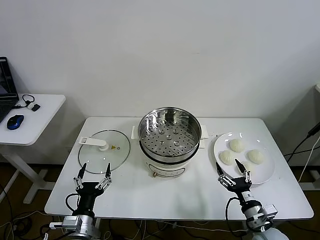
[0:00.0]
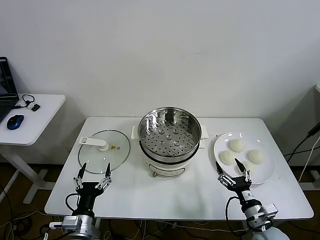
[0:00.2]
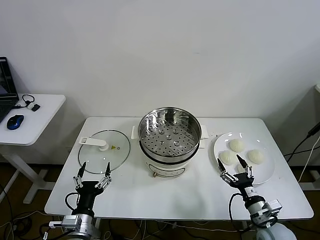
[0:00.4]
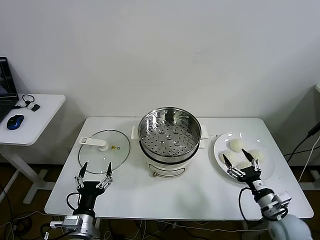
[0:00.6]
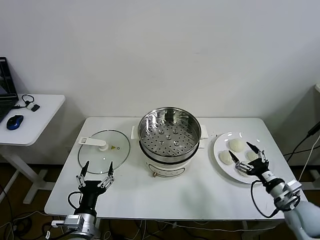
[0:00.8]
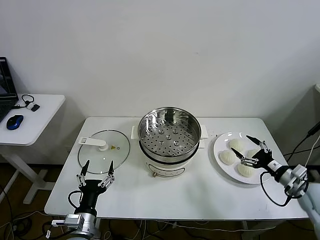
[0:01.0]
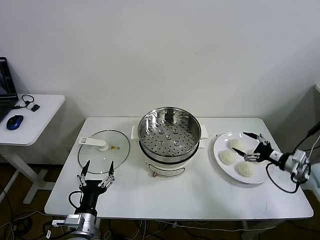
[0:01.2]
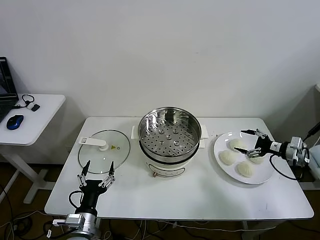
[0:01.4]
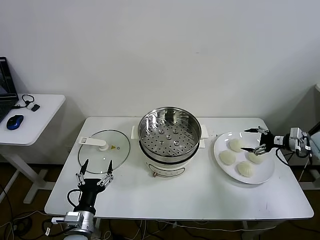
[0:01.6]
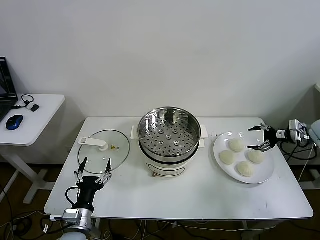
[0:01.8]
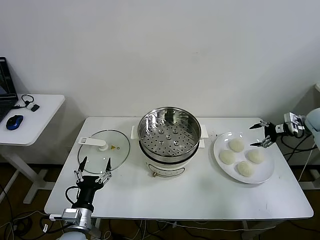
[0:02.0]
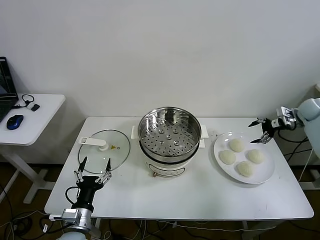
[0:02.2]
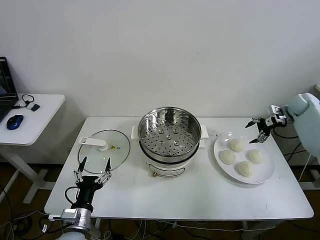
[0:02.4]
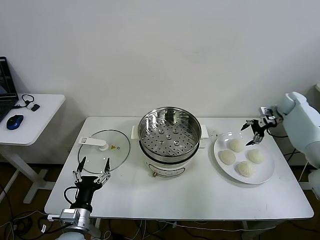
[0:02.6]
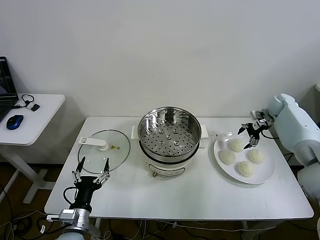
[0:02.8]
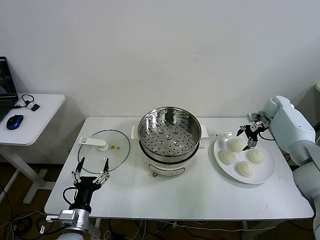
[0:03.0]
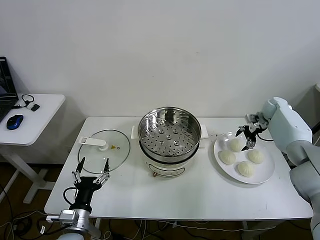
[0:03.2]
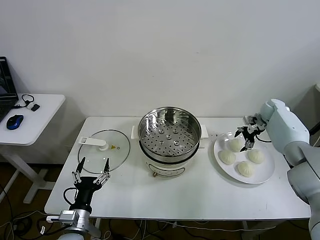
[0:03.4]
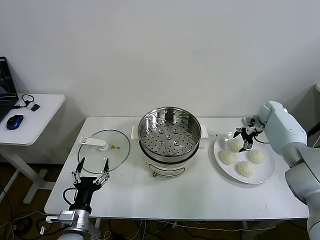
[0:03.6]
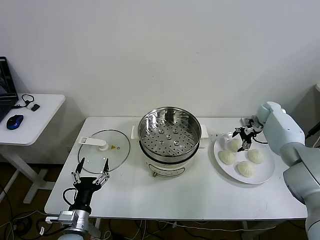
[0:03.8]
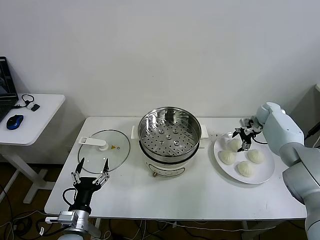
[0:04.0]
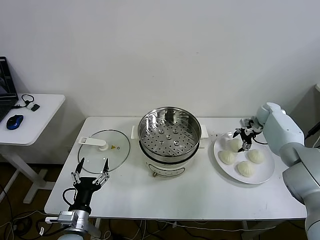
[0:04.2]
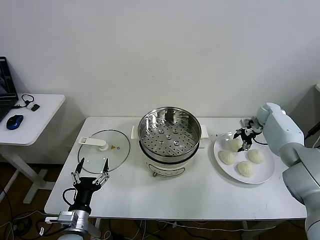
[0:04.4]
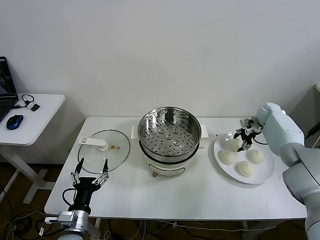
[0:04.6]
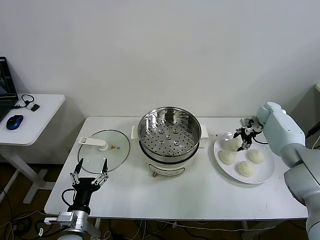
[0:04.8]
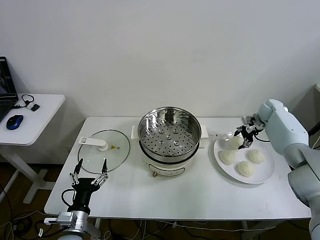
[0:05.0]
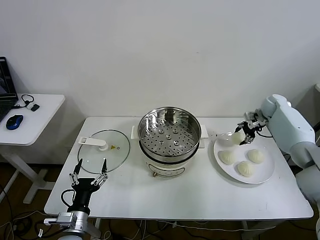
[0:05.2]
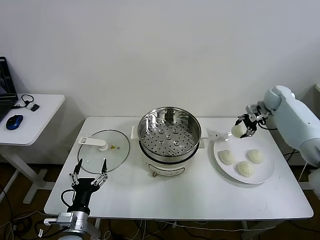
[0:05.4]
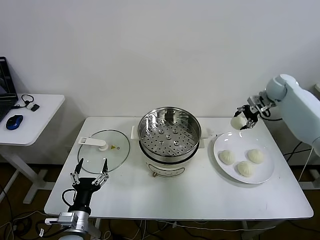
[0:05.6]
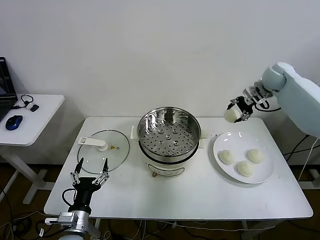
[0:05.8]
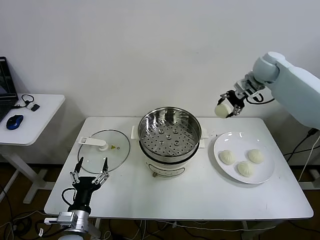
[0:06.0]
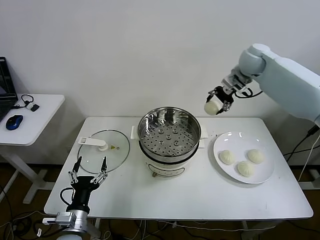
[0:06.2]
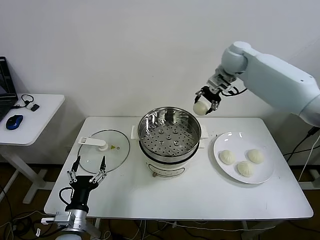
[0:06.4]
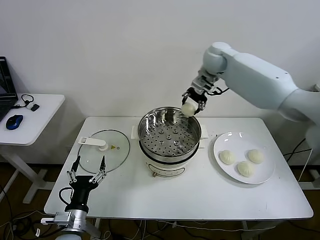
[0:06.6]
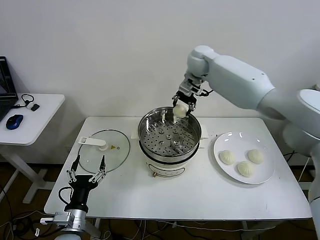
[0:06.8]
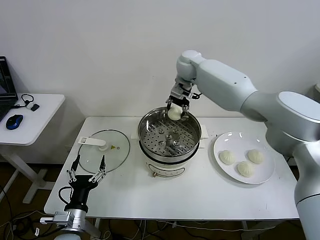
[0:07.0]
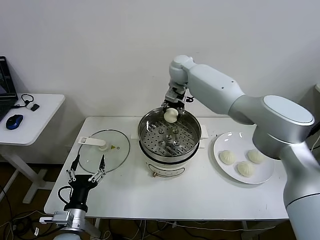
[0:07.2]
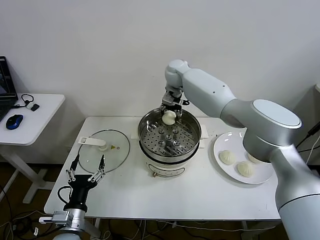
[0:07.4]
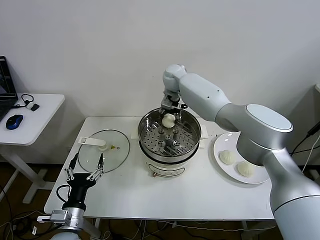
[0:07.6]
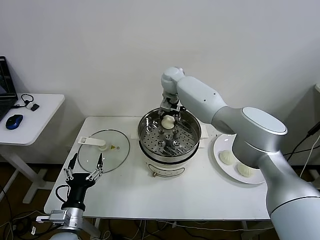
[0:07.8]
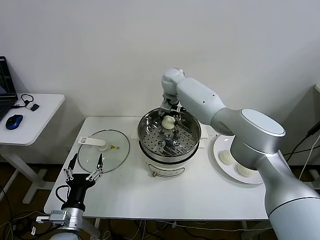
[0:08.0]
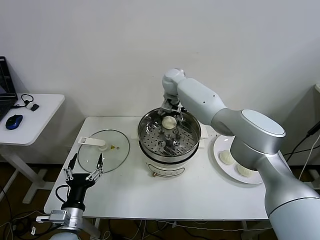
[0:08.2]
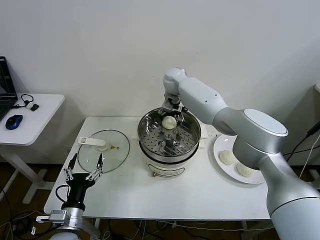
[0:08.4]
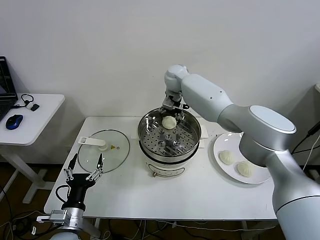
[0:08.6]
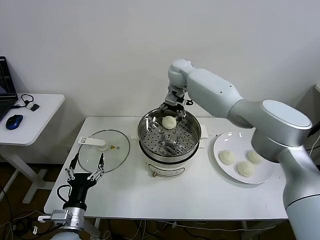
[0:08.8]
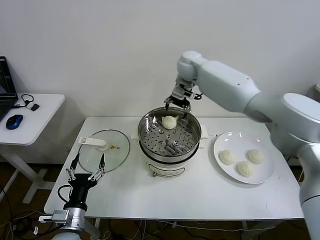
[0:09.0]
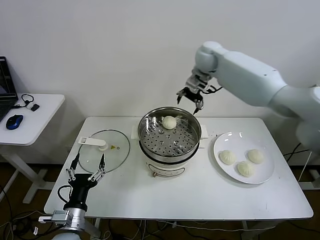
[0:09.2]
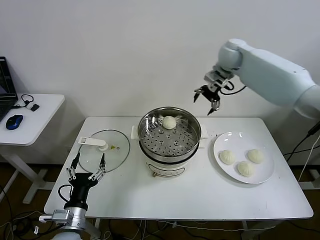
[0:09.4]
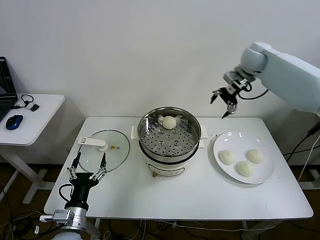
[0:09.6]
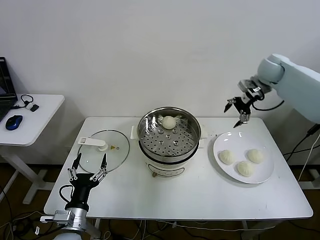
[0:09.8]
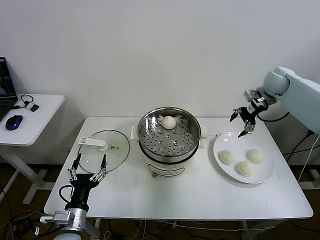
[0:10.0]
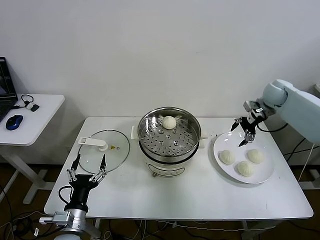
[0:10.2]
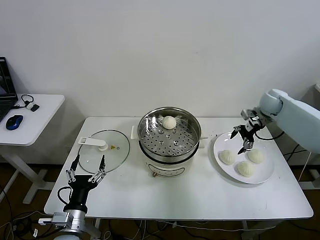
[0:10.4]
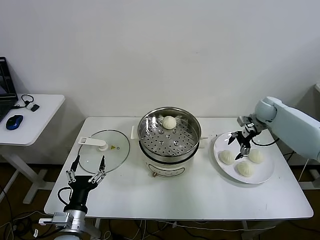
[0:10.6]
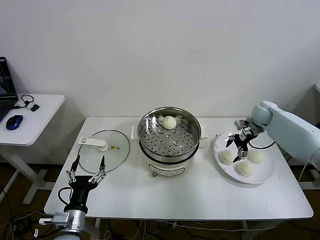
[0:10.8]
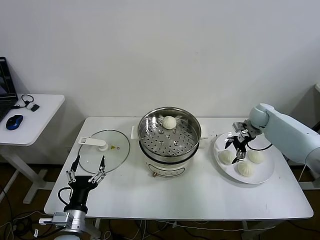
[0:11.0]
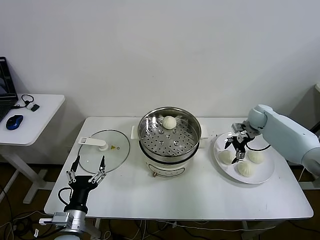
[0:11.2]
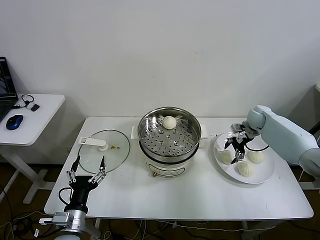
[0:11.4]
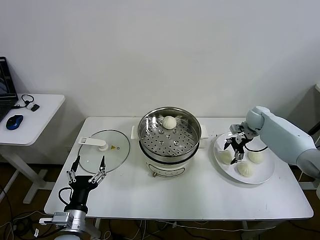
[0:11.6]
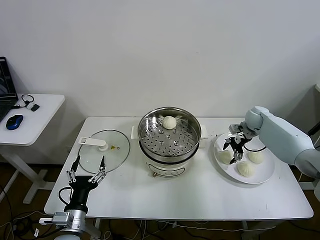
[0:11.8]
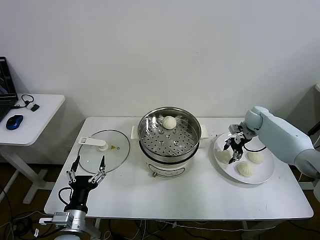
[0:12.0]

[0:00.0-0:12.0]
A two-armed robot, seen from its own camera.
Task of the whole recording: take steamed baozi put them in steamer.
Step, 0:00.0 to 0:04.6: Grasp the baozi in the plate with right gripper.
Step, 0:04.8 to 0:08.6: Place the baozi on the steamer with right gripper.
0:01.6 to 0:03.0: The right gripper is displaced forward and to the left by roughly 20 cm.
0:03.0 to 0:04.4: The right gripper closes.
0:04.4 to 0:06.0: The right gripper heads upward and to the left, covering about 25 cm.
0:06.0 to 0:07.6: The right gripper is displaced to the left by some 30 cm.
0:07.6 to 0:09.0: The right gripper shifts about 10 cm upward and to the right, and opens its fingers.
0:09.0 to 0:10.4: The right gripper moves to the right and downward, about 35 cm.
0:10.4 to 0:12.0: The right gripper goes roughly 10 cm downward, and closes.

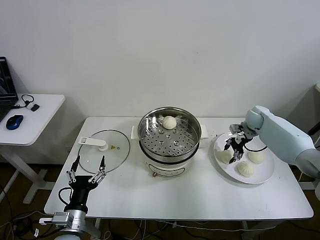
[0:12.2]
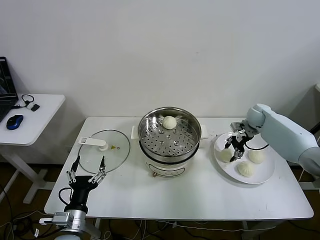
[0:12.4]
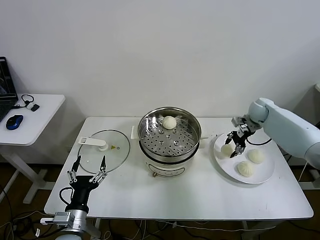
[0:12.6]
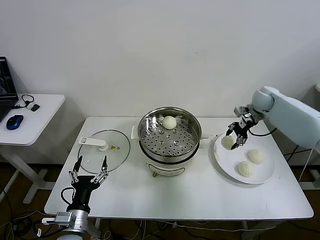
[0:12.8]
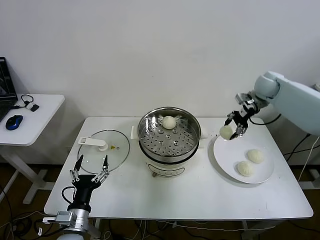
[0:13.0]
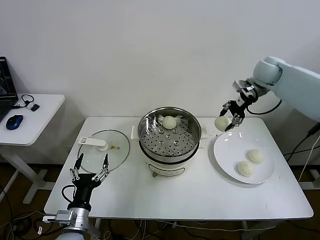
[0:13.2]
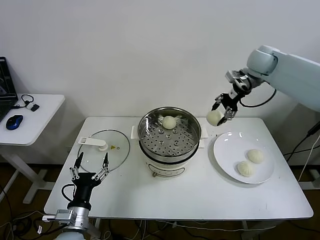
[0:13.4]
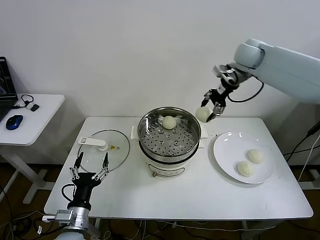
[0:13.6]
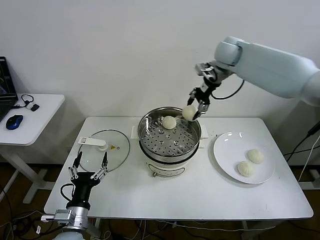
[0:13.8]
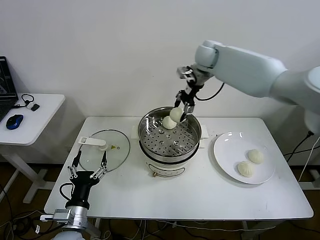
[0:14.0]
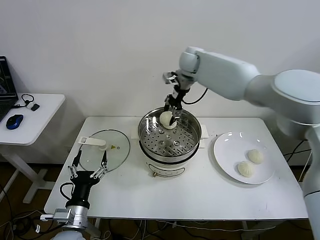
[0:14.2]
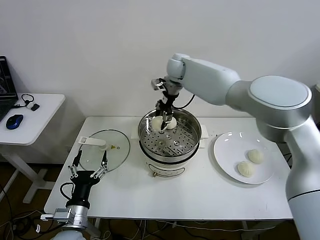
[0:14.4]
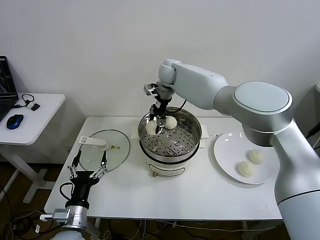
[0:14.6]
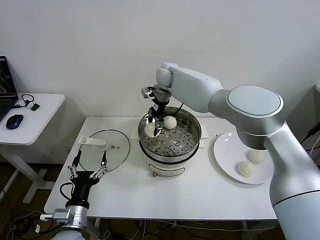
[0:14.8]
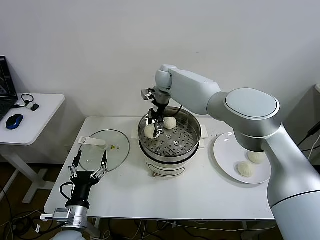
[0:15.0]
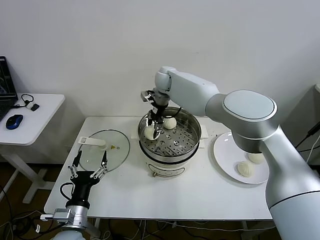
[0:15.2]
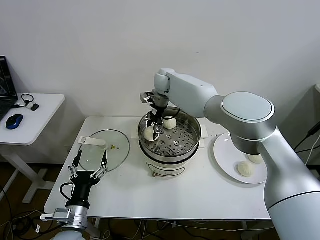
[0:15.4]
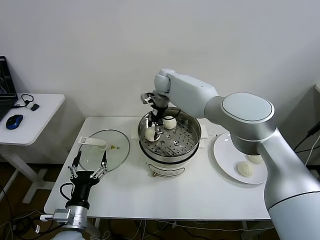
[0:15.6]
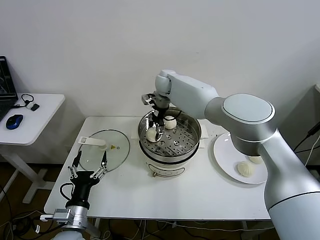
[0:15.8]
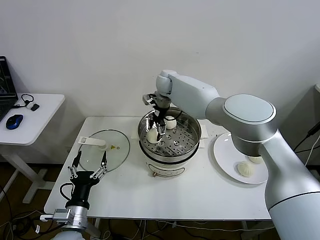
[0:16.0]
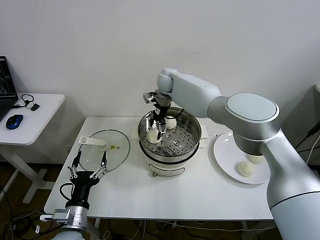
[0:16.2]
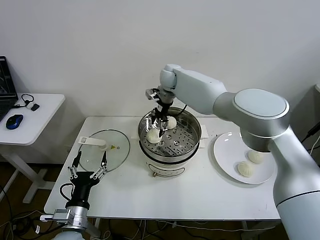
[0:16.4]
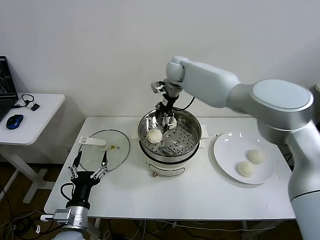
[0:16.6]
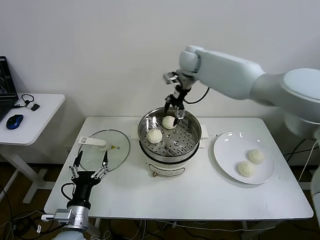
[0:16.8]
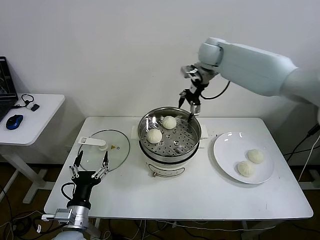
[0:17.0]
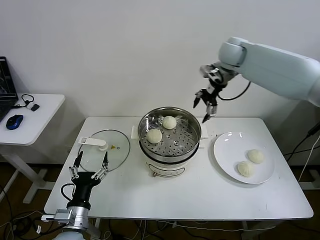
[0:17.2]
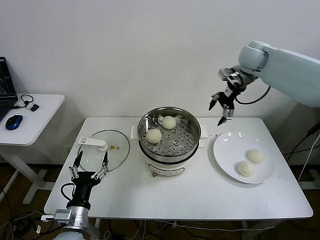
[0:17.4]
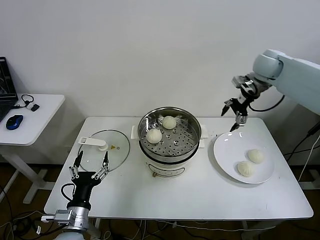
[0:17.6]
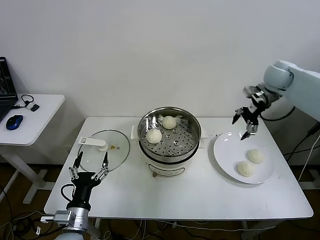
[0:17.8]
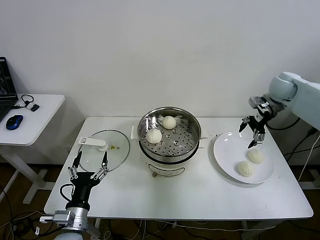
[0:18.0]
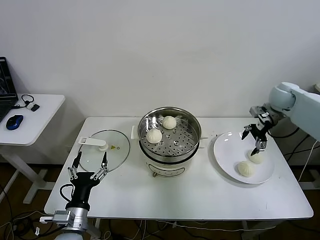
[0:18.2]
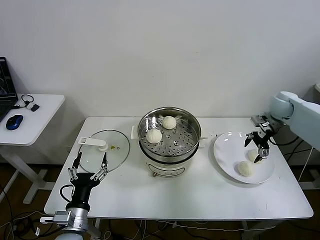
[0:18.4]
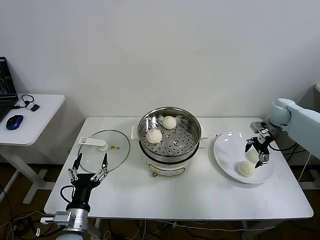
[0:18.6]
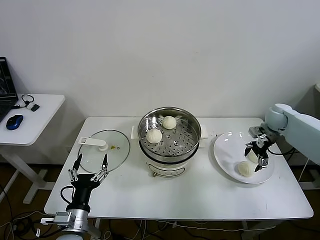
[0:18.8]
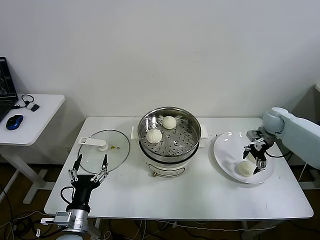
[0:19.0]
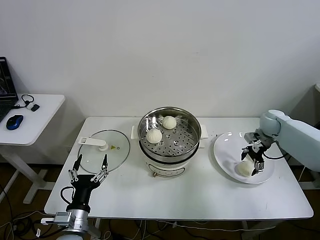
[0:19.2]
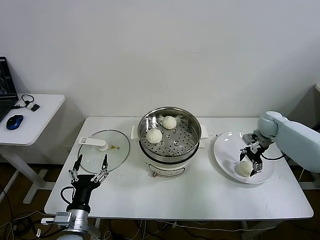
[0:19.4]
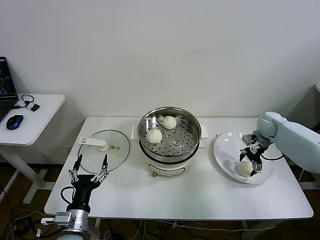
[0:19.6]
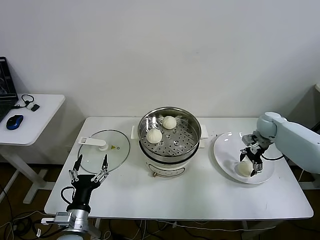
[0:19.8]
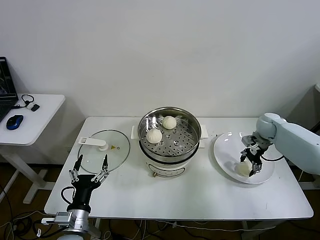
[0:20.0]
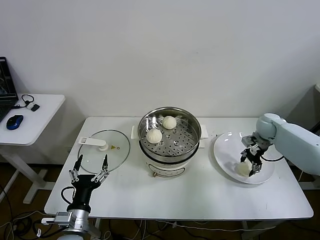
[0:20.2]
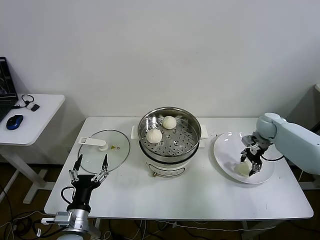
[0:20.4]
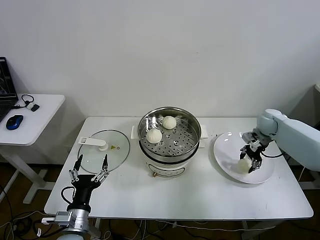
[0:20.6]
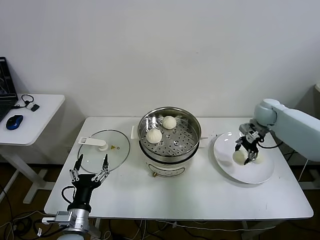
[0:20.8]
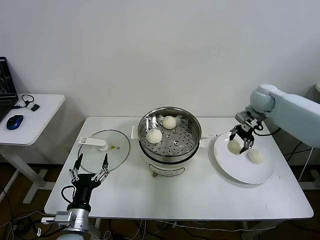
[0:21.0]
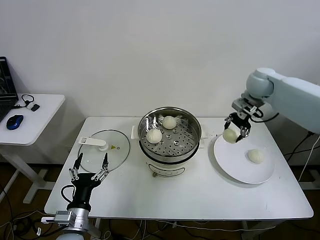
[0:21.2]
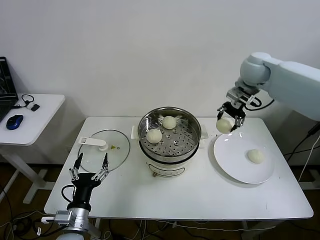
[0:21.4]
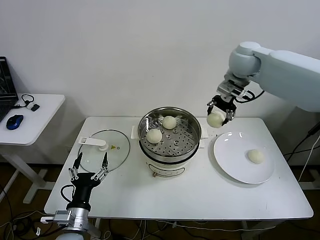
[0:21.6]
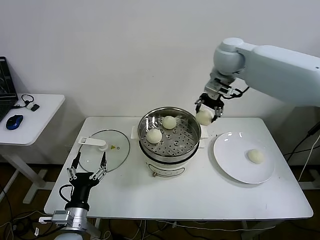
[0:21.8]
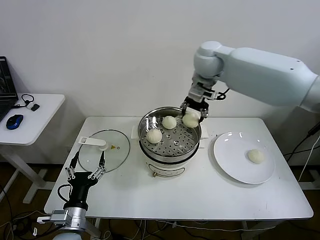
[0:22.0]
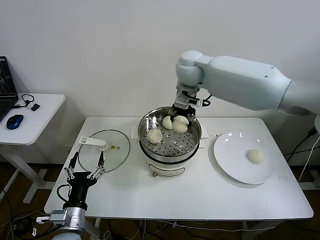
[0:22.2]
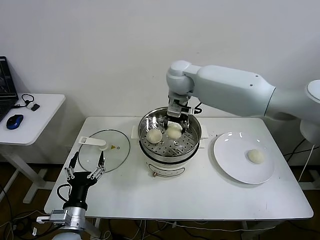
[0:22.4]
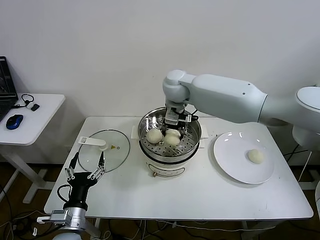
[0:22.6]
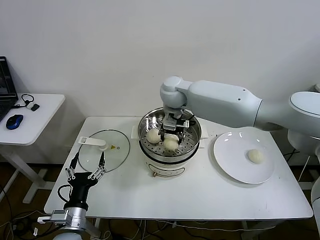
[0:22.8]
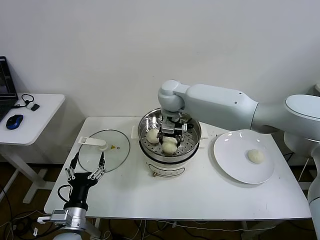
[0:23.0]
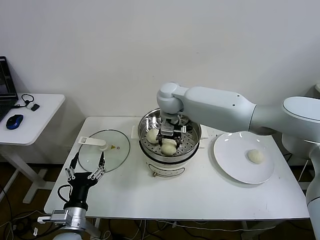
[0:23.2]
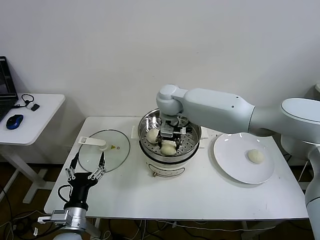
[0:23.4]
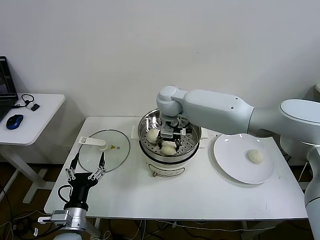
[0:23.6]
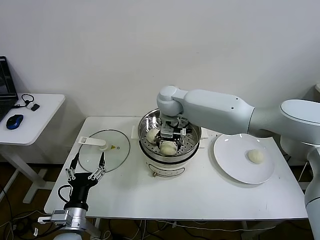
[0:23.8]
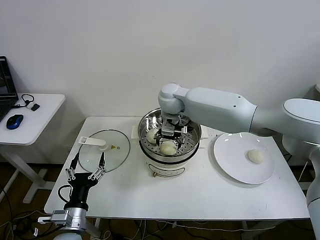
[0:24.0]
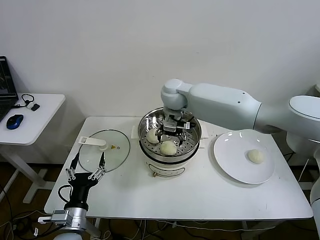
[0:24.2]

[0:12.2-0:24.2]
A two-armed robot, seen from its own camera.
Task of the whole recording: take steamed baozi put them in steamer.
Step, 0:12.2 to 0:16.2: Place the baozi on the steamer with right gripper.
Step, 0:16.4 to 0:20.4: Grasp the baozi in the plate with right gripper.
Step, 0:20.6 to 0:24.0: Place the baozi on the steamer with right gripper.
0:12.2 to 0:13.8: The right gripper travels upward and to the left by about 35 cm.
0:13.8 to 0:15.2: The right gripper goes some 20 cm to the left and downward.
0:15.2 to 0:16.6: The right gripper goes approximately 5 cm to the right and upward, and opens up.
0:16.6 to 0:18.2: The right gripper moves to the right, some 35 cm.
0:18.2 to 0:19.8: The right gripper goes some 15 cm downward.
0:19.8 to 0:21.2: The right gripper is displaced upward and to the left by roughly 20 cm, and closes up.
0:21.2 to 0:22.6: The right gripper is displaced to the left by approximately 30 cm.
0:22.6 to 0:24.2: The right gripper opens up.
